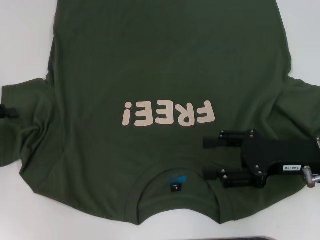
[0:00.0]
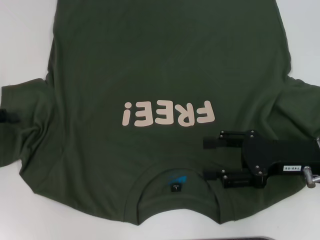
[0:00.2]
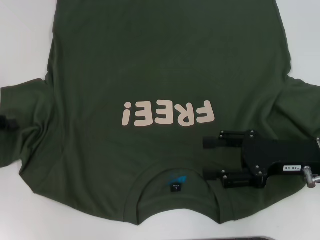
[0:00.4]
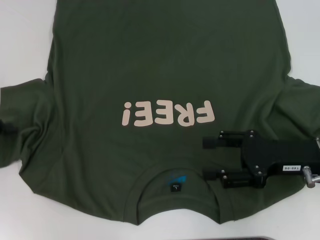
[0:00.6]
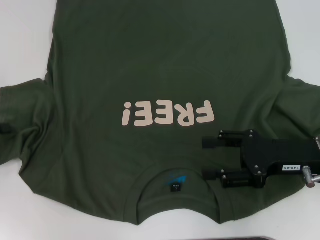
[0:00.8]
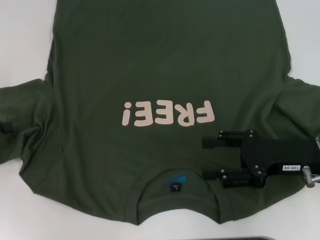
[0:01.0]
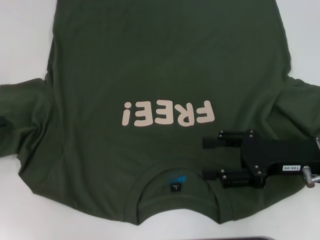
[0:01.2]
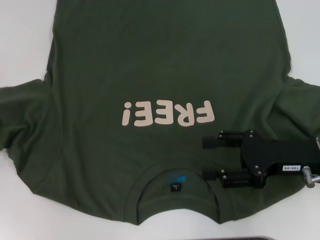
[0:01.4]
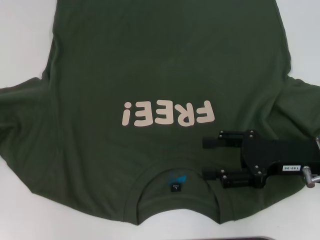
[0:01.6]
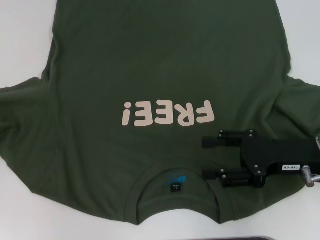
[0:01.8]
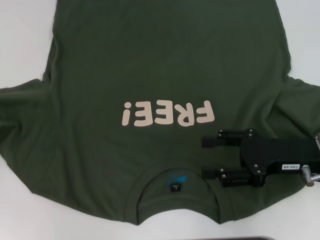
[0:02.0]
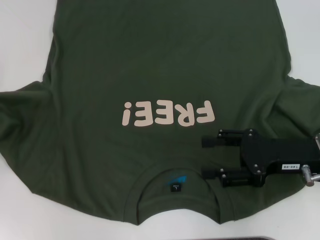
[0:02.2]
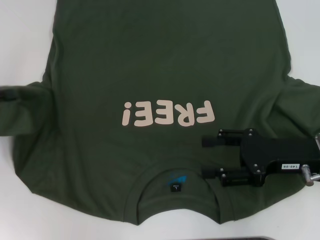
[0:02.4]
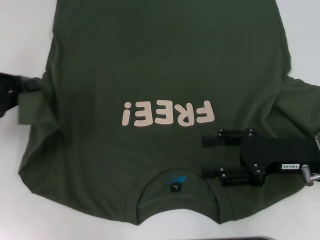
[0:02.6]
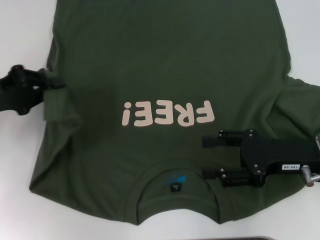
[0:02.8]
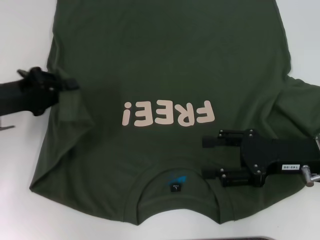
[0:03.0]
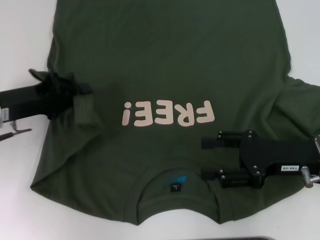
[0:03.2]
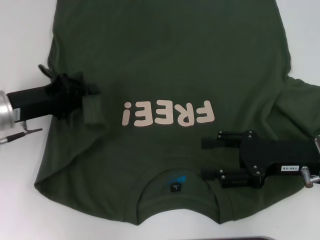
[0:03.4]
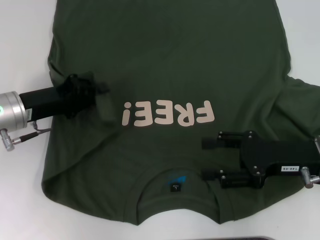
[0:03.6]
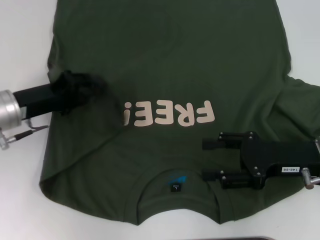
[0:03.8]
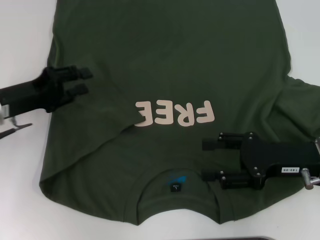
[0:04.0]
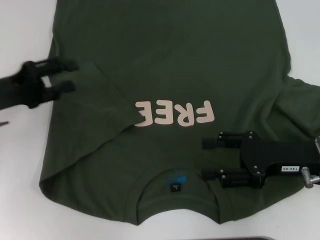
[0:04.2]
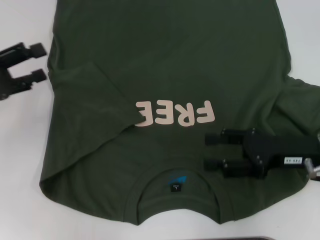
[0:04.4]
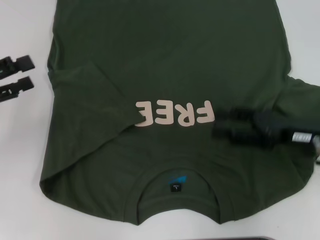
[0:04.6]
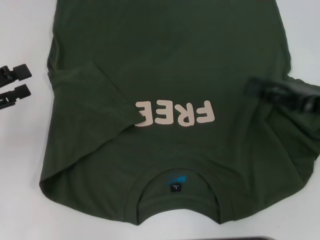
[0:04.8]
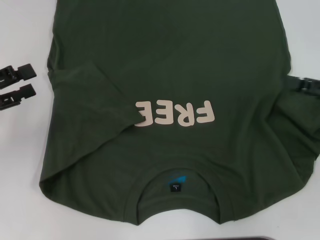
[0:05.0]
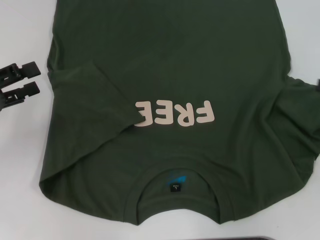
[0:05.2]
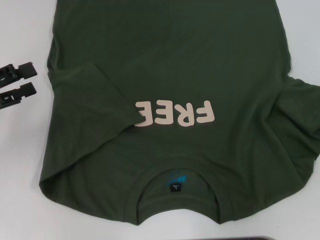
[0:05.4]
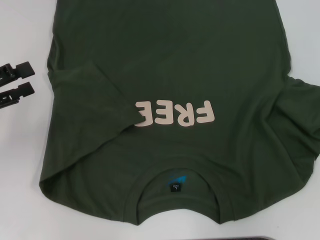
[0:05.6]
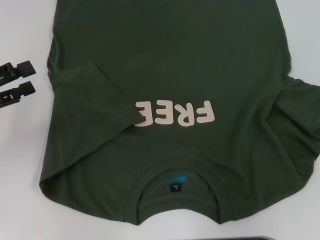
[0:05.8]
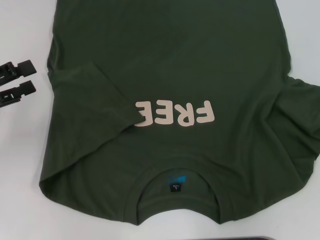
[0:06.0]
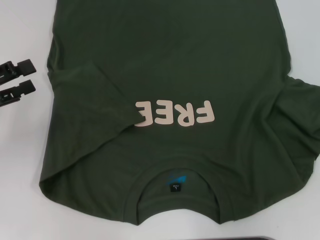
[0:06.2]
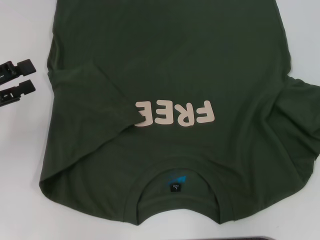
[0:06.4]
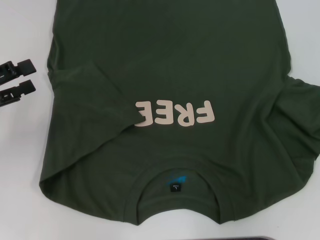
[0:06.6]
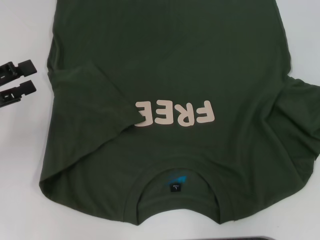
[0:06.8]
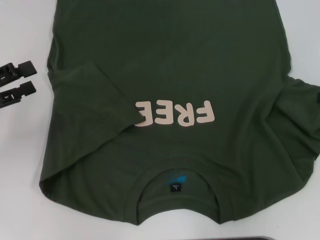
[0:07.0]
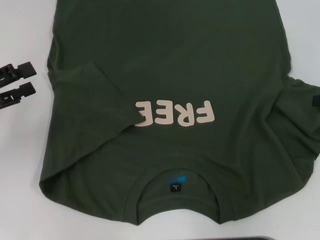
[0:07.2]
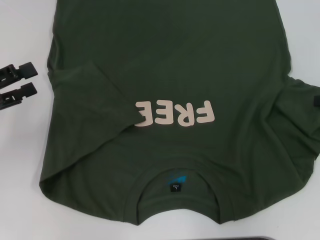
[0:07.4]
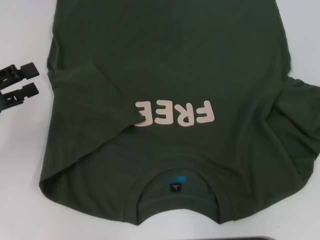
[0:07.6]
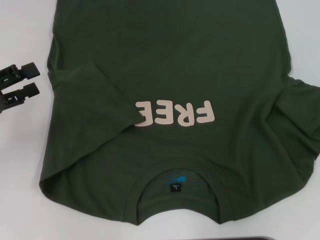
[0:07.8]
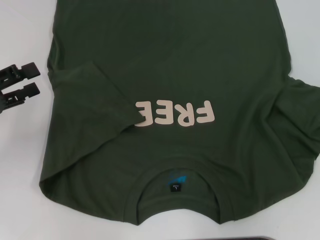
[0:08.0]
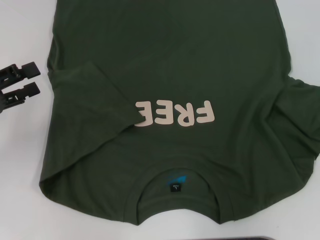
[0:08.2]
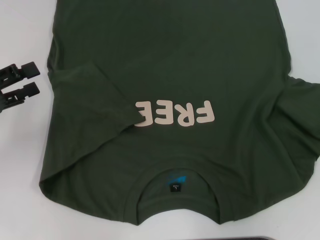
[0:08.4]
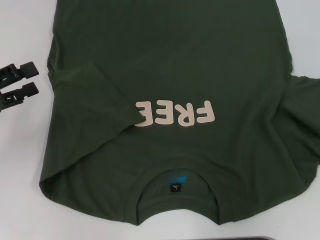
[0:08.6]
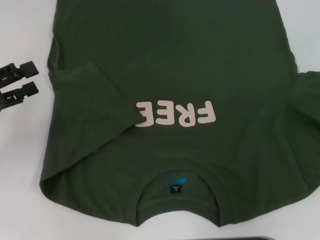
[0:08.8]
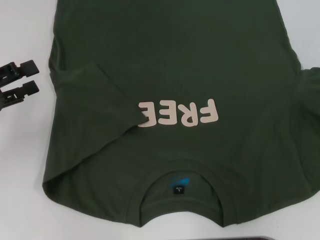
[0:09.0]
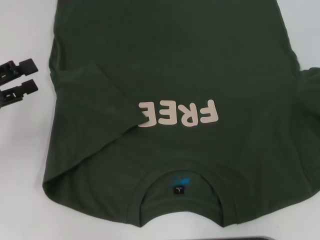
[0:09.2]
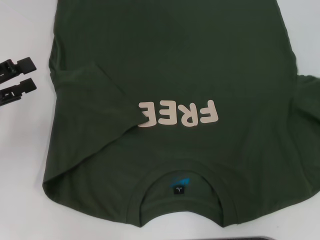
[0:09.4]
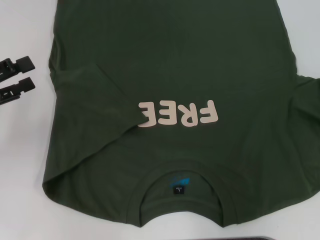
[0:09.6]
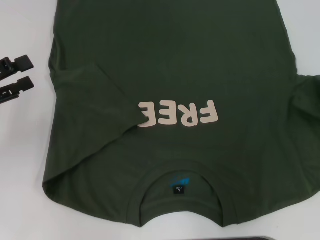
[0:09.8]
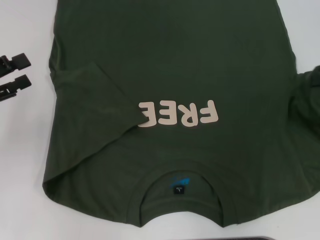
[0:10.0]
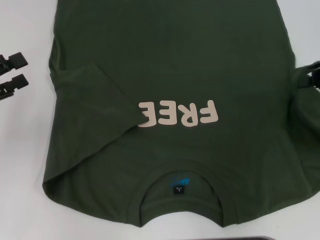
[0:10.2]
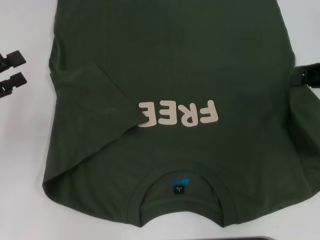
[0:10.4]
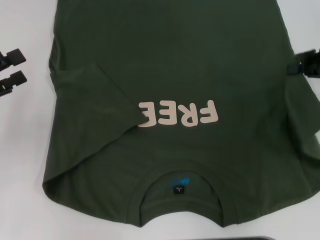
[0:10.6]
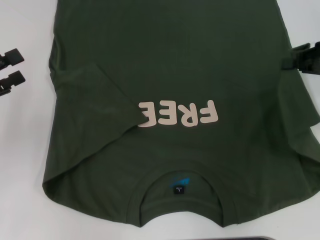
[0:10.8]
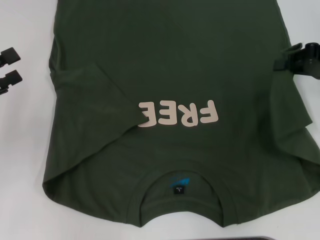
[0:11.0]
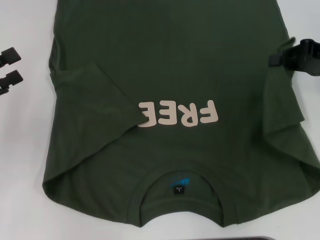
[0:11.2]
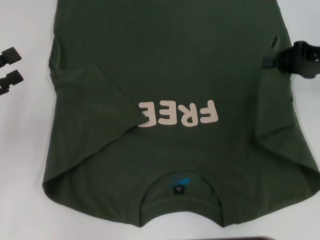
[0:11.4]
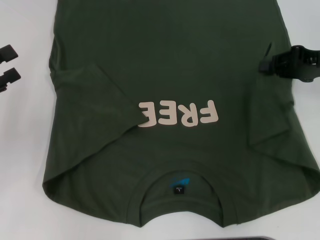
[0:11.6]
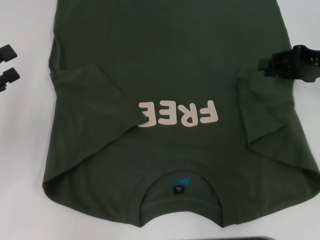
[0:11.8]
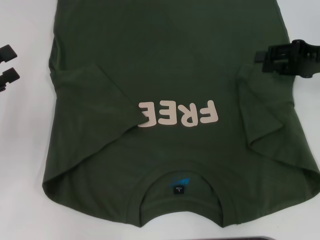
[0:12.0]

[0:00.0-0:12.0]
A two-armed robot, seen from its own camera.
Step, 0:00.0 to 0:03.8: Fold the bottom left sleeve with your left hand.
0:00.0 to 0:01.6: The left gripper closes its fingers.
0:01.6 to 0:03.0: The left gripper shifts roughly 10 cm to the right.
0:03.0 to 0:04.4: The left gripper moves about 5 cm, and opens up.
0:04.4 to 0:06.0: The right gripper heads to the right, covering some 15 cm.
0:06.0 to 0:07.6: The grippers stay close to where they were, moving slightly.
0:07.6 to 0:09.0: The right gripper closes.
0:09.0 to 0:10.4: The right gripper goes some 10 cm to the left.
0:10.4 to 0:12.0: The right gripper opens.

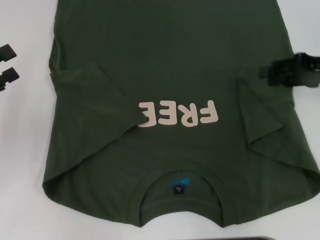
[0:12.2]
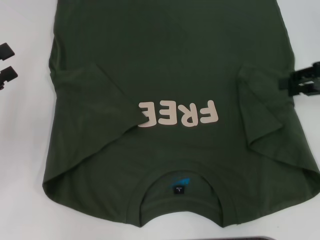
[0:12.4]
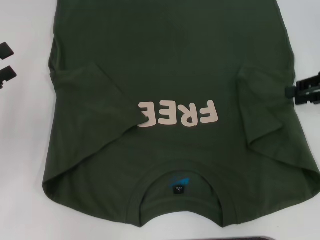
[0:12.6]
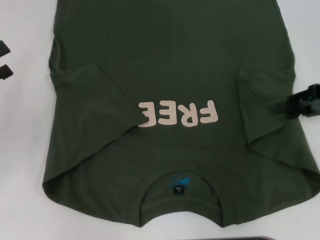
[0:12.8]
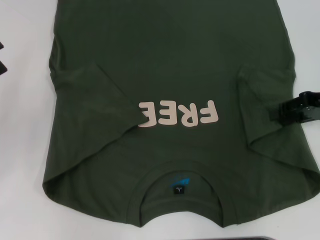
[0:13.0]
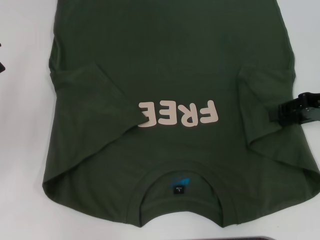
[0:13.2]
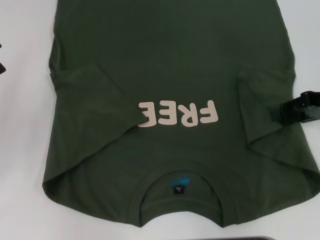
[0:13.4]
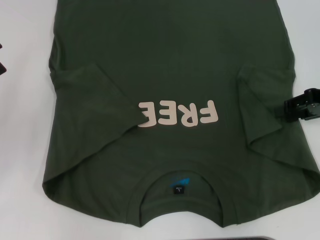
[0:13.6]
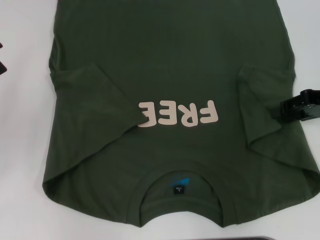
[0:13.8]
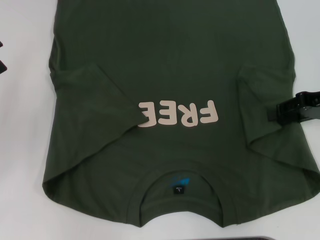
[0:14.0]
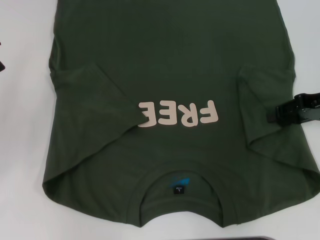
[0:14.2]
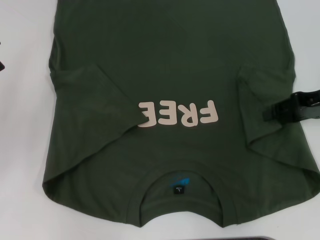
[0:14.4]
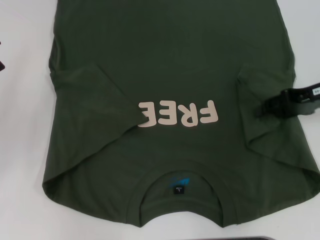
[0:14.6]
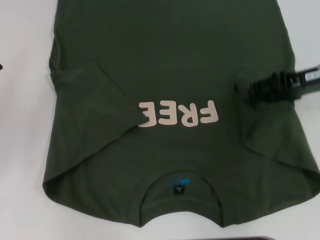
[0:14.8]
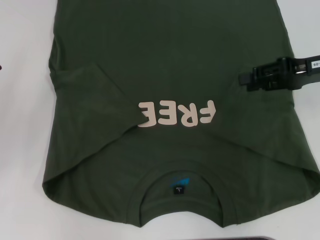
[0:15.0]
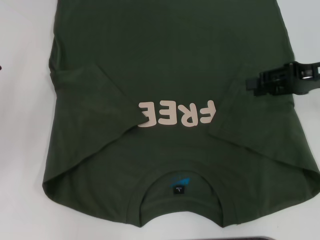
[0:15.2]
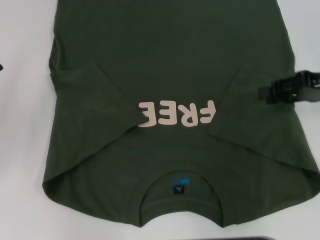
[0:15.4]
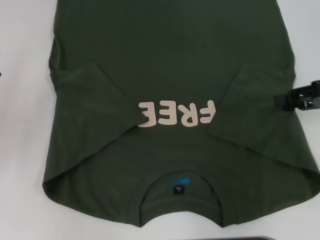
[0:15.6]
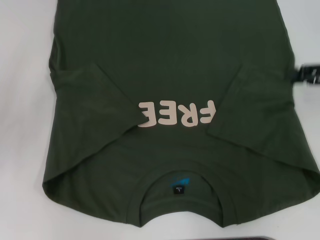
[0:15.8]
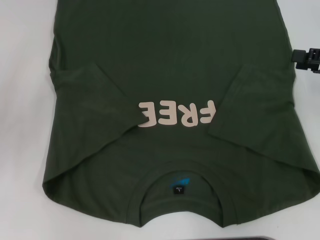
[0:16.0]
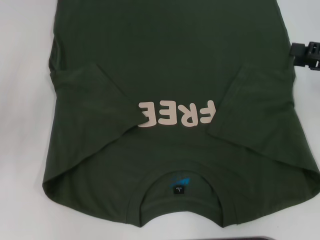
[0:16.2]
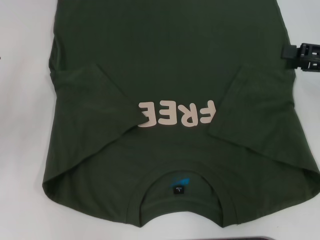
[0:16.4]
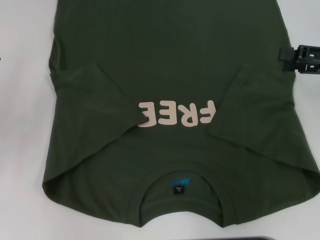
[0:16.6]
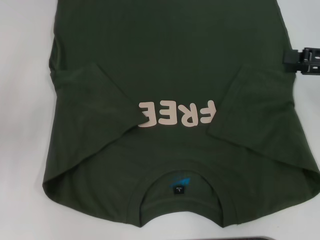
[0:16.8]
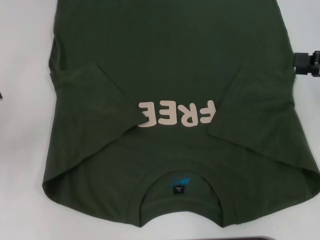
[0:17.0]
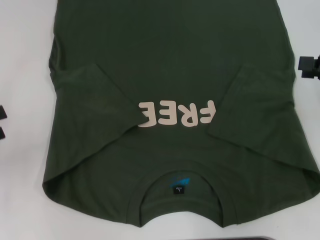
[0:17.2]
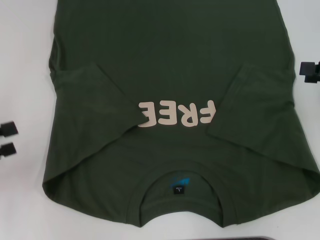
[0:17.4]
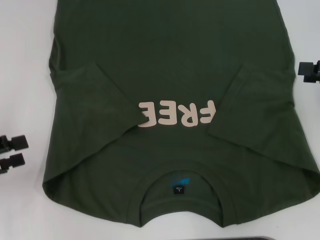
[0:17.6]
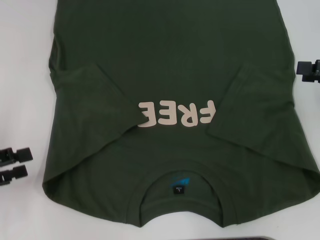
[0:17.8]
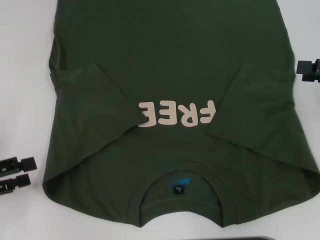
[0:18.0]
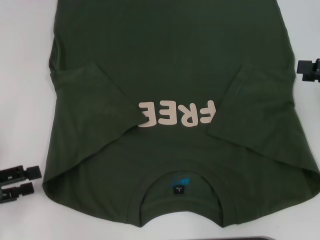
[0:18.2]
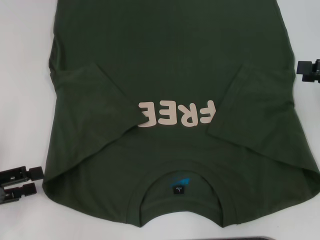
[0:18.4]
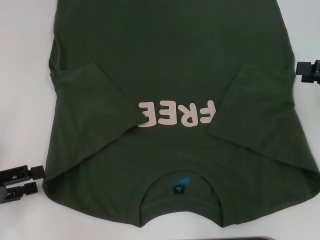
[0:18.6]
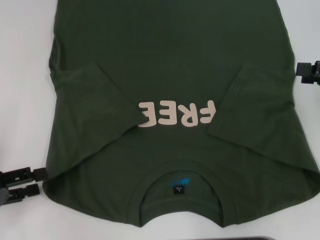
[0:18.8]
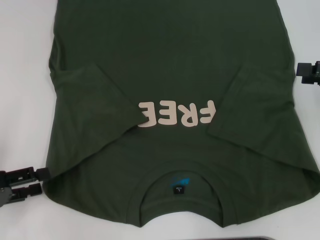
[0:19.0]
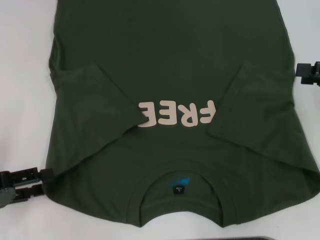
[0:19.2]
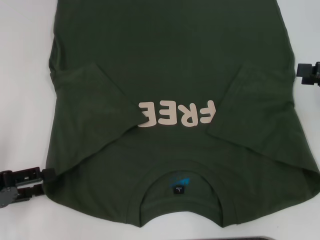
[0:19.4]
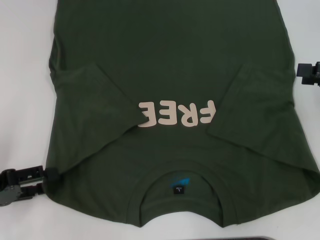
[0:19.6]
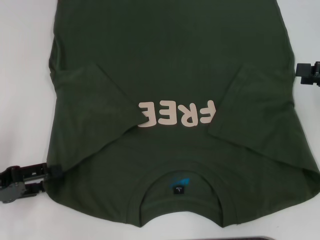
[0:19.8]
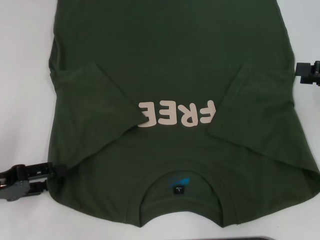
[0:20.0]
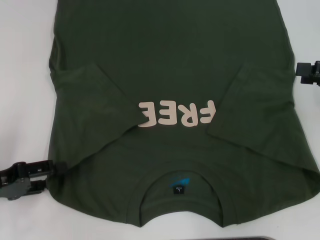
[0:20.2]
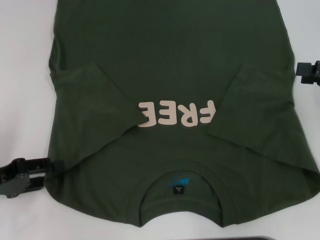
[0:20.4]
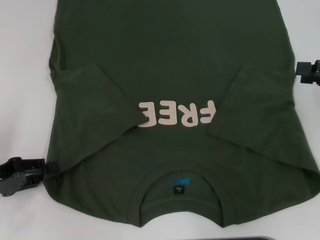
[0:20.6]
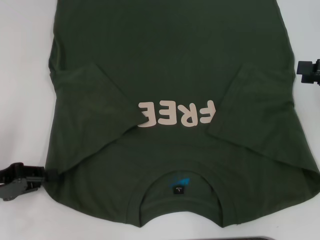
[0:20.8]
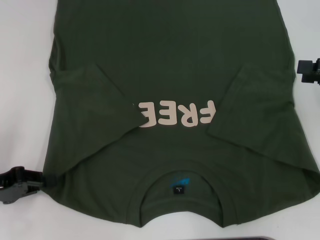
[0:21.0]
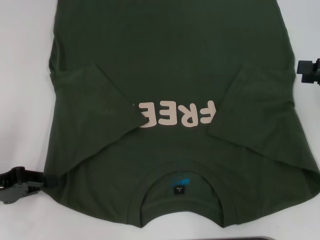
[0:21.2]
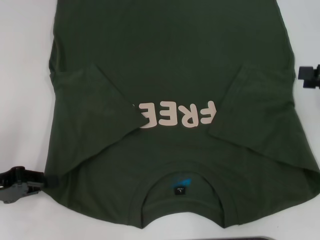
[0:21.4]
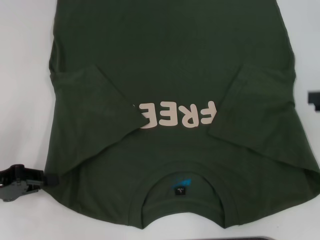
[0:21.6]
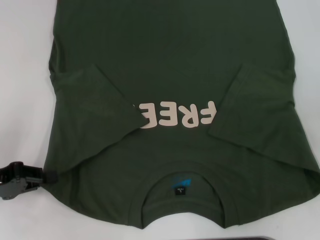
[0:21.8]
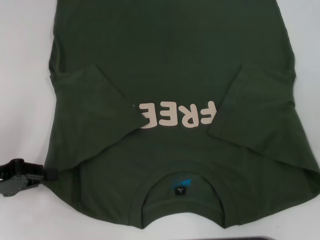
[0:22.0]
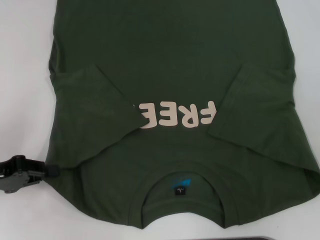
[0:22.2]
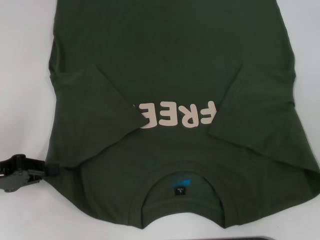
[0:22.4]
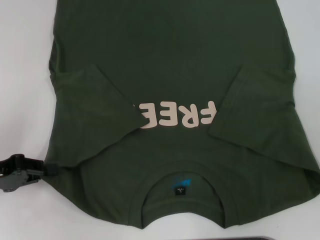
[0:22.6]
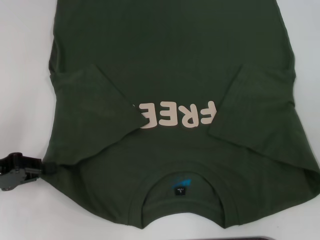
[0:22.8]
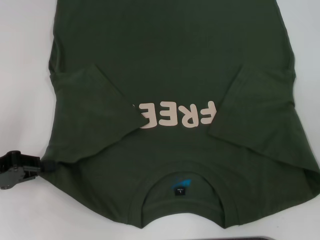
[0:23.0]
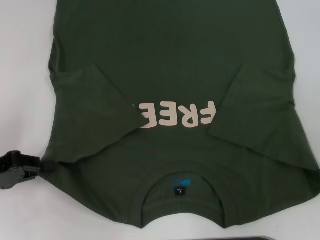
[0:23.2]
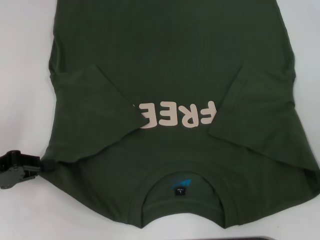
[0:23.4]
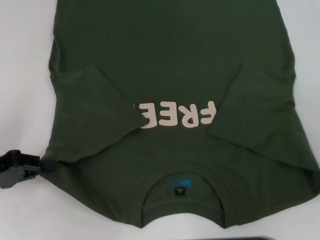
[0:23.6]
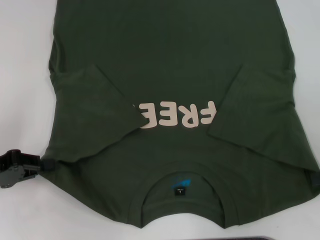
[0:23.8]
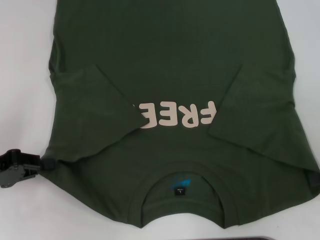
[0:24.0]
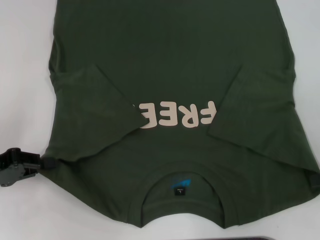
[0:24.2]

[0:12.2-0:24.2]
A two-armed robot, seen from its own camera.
Step, 0:12.2 to 0:15.0: Fold the bottom right sleeve with your right hand.
Step, 0:15.2 to 0:22.0: Grab the bottom left corner with your left hand.
0:12.2 to 0:15.2: The grippers stay close to where they were, moving slightly.
0:15.2 to 0:16.6: The right gripper moves some 5 cm, and opens.
0:16.6 to 0:18.2: The left gripper is displaced backward and downward by about 10 cm.
0:18.2 to 0:19.8: The grippers make only small movements.
0:19.8 to 0:21.2: The left gripper closes its fingers.
0:21.2 to 0:22.6: The right gripper heads backward, covering roughly 5 cm.
0:22.6 to 0:24.2: There are only small adjustments of the grippers.
